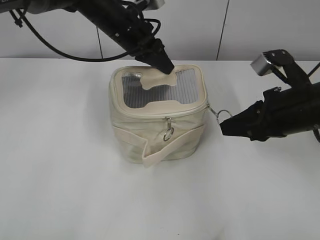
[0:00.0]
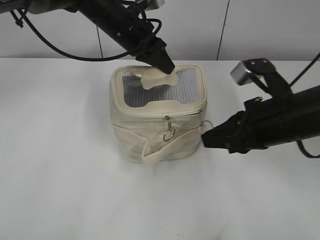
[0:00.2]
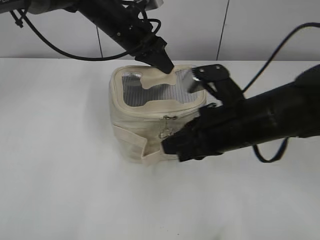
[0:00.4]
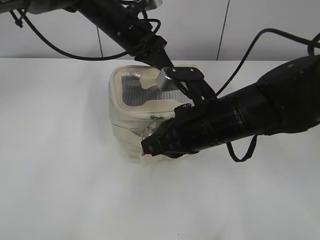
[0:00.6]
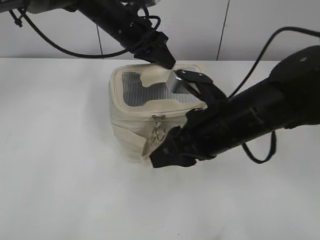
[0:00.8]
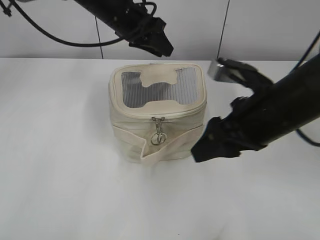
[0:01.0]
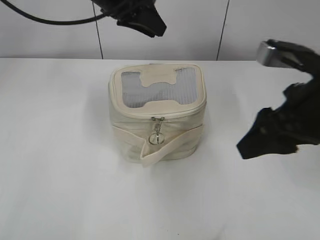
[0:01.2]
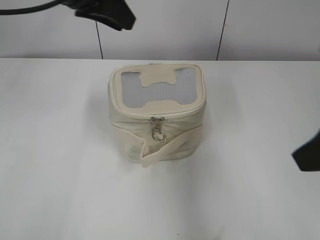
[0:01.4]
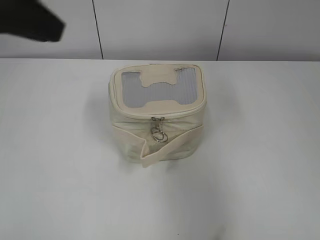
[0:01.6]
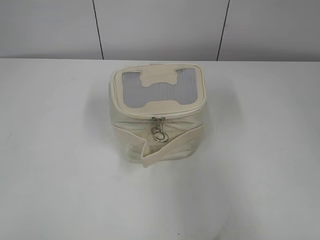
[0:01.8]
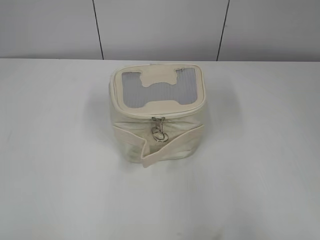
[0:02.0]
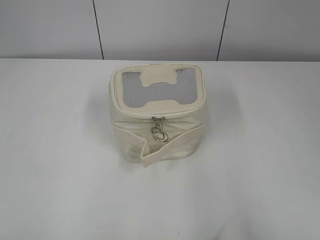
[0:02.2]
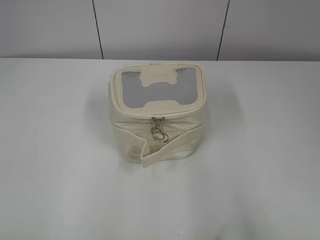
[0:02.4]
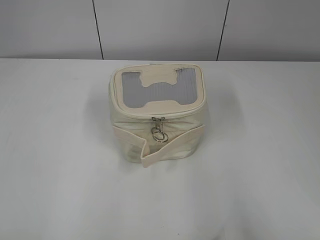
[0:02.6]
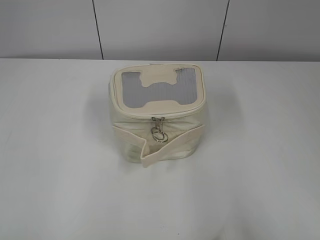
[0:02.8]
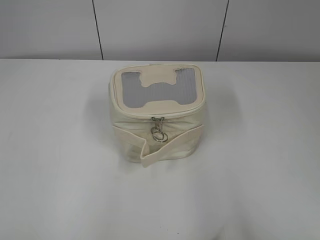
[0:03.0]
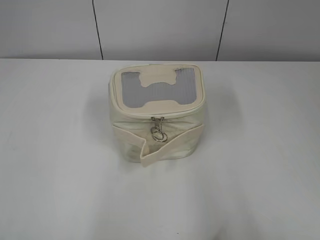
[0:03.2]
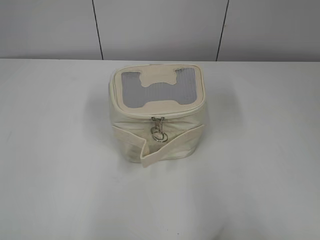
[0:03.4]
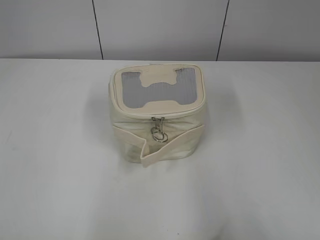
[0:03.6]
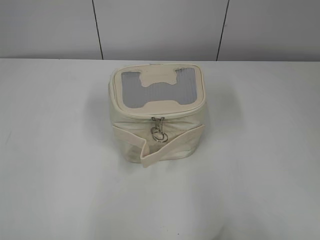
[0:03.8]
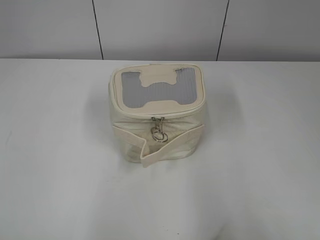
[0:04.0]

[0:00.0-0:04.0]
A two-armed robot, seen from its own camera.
0:00.0 to 0:01.4: The grippers both shift upward and backward by some 15 cm. The left gripper opens its fingers. The right gripper reaches approximately 10 cm to the left, then returns, and opens.
0:01.4 to 0:02.6: The right gripper heads backward and to the right, covering some 20 cm. The left gripper moves backward and to the left, some 40 cm.
